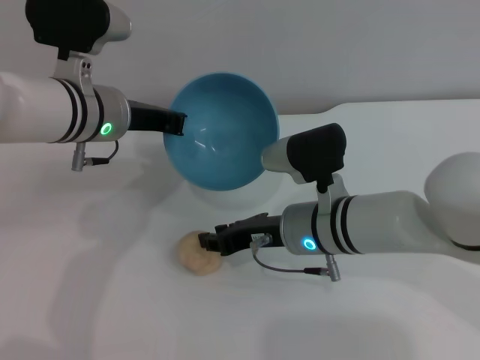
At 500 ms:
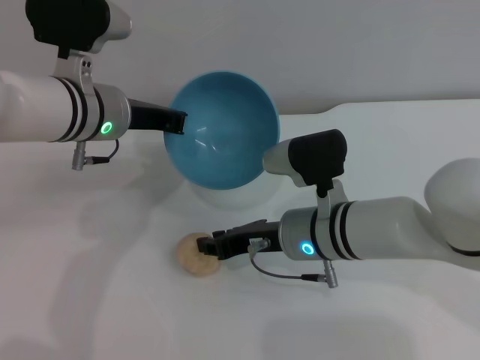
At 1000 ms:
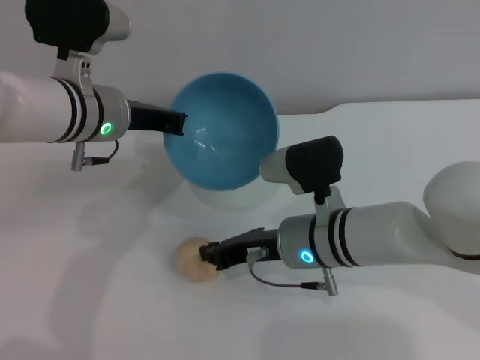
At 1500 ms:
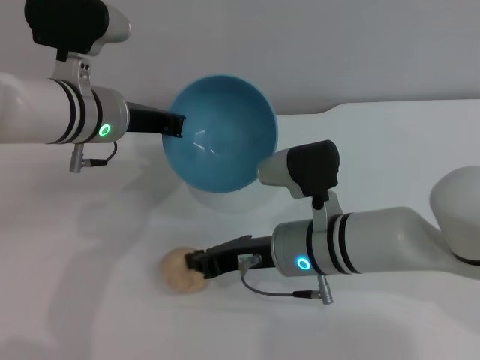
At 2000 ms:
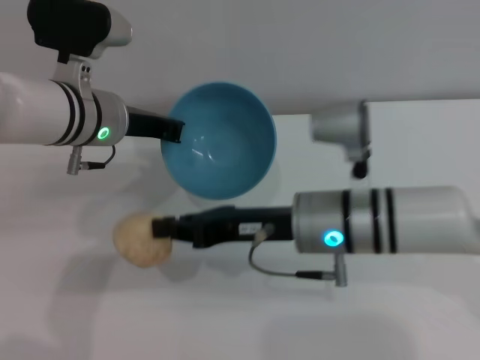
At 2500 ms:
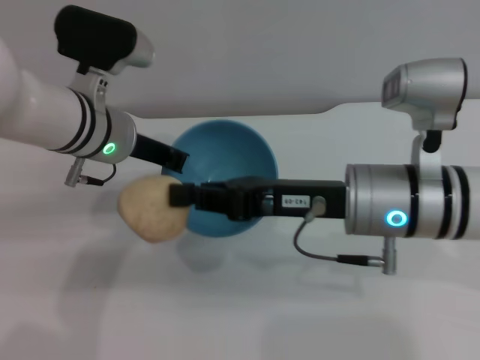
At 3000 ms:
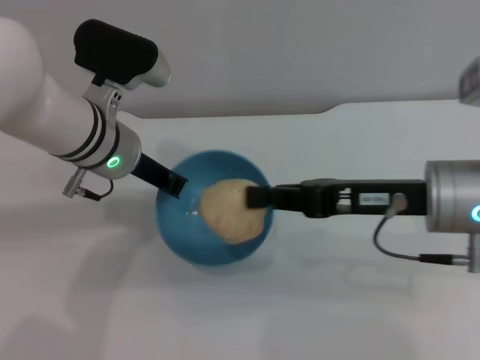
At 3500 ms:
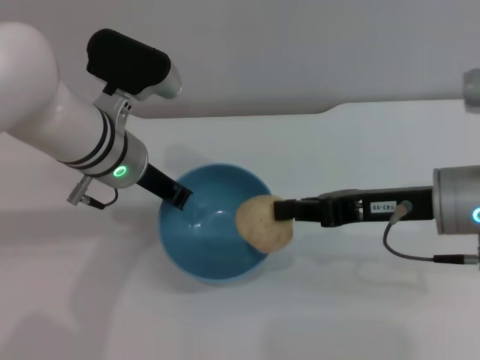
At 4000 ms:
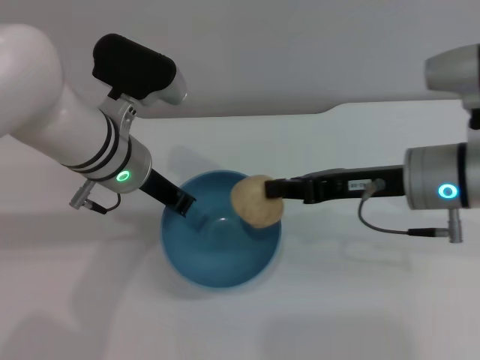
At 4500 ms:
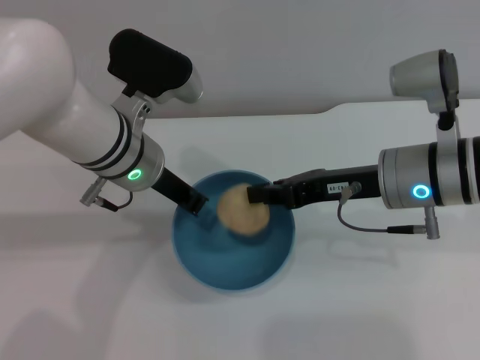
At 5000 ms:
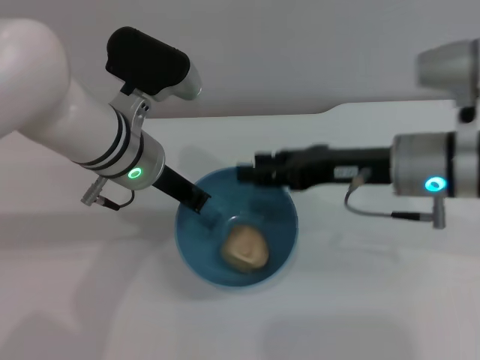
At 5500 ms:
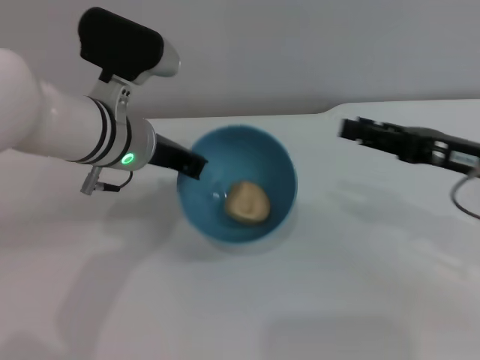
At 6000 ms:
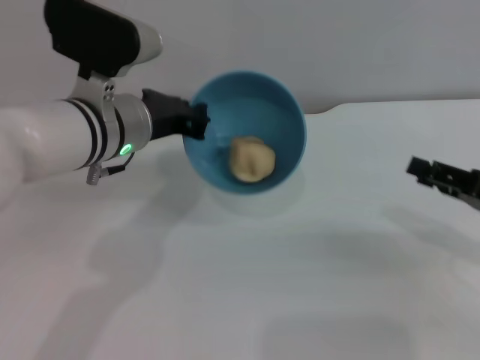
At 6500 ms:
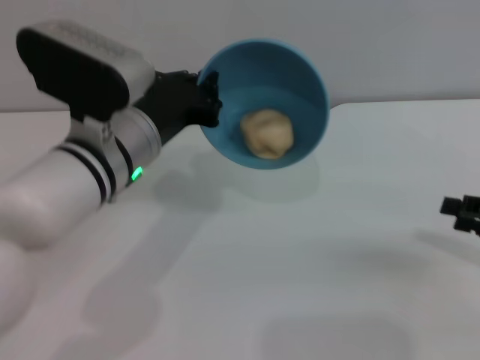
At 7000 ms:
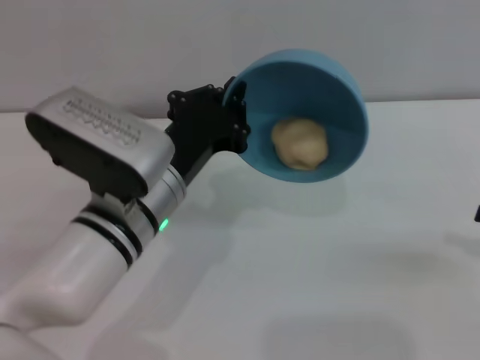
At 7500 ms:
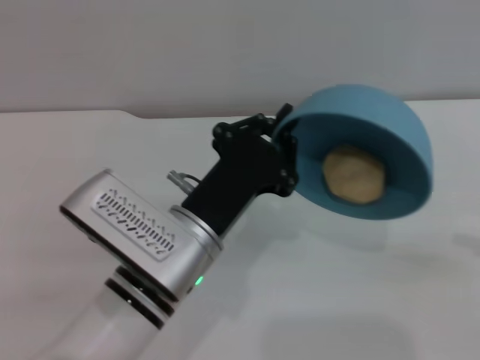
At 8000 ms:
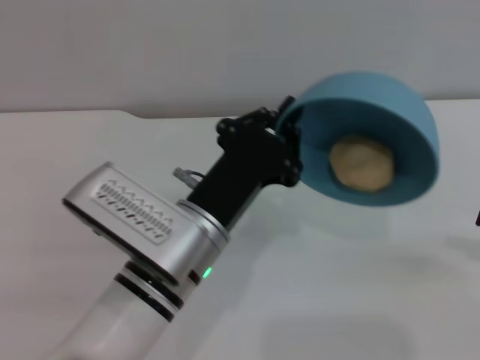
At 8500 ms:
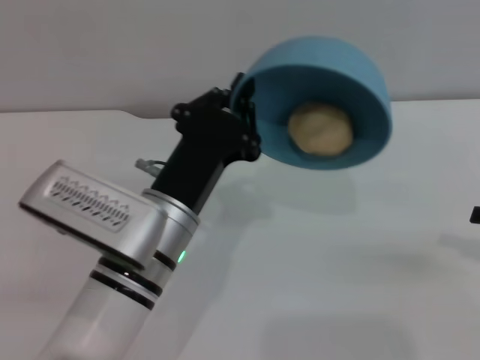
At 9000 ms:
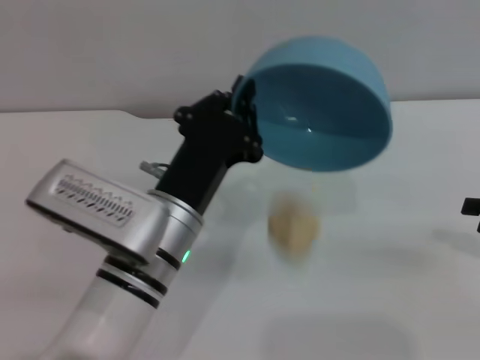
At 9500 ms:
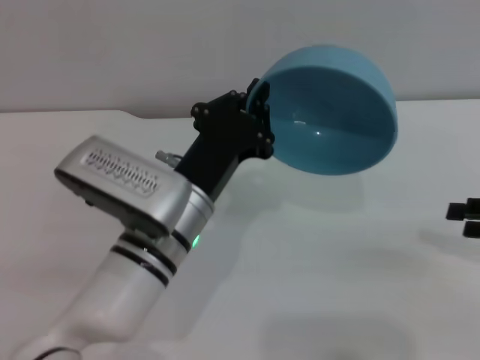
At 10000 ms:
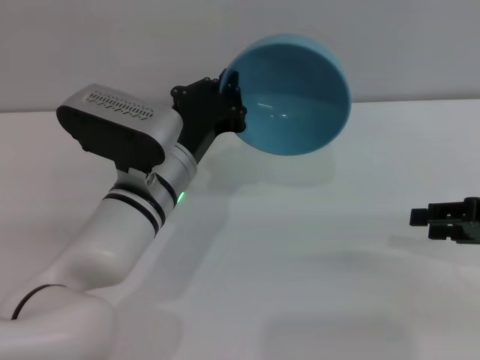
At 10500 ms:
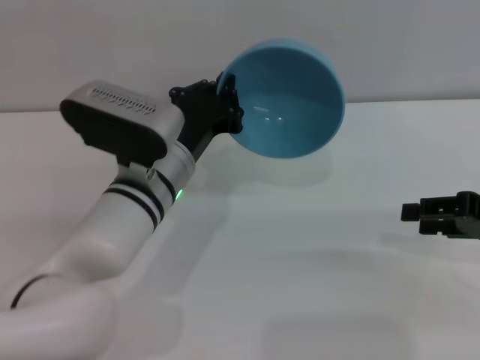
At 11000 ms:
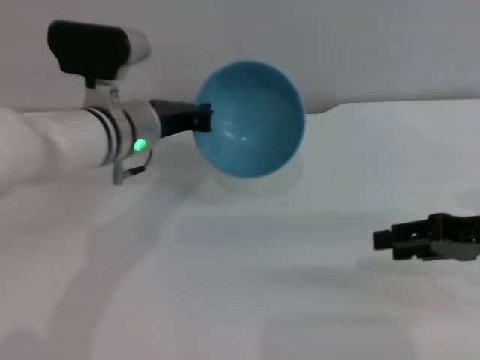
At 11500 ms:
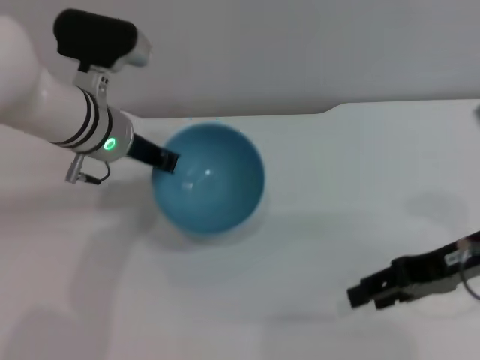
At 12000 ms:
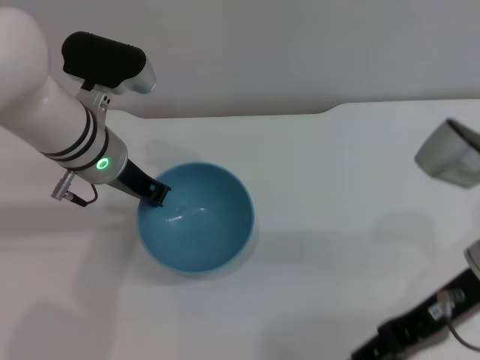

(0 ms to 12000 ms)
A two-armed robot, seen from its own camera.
Task of the whole recording: put the egg yolk pastry into the blue bowl and pour it out repeatedly.
Step, 0 ms - 2000 ms: Pick up the egg yolk pastry with the right gripper.
Step, 2500 ms - 5000 ms: Place the egg yolk pastry into the bowl.
Step, 5500 ms - 9500 ms: Pour the egg yolk pastry out of bowl.
0 ms - 2000 ms: The right gripper is displaced upward by roughly 5 cm, and closes its fingers.
2000 ms - 4000 ms: The right gripper is displaced to the right by some 10 cm.
4000 ms - 6000 ms: The right gripper moves to the right and backward, some 15 cm, and opens up.
6000 ms - 8000 ms: The left gripper heads backward, downward and to the right, covering roughly 15 cm, while the right gripper moves to the right, about 5 cm.
8000 ms - 10000 ms: The left gripper heads forward, covering about 10 cm. The right gripper moves to the left, roughly 5 cm.
10000 ms - 12000 ms: The right gripper shifts roughly 10 cm to the left, while the left gripper travels forward and to the left by about 10 cm.

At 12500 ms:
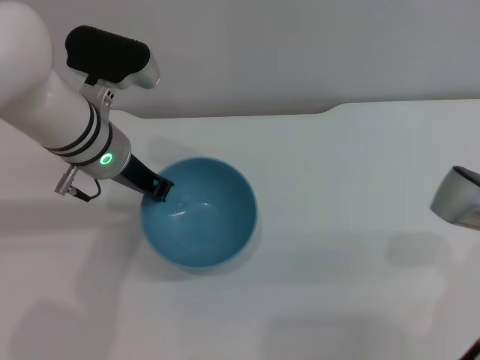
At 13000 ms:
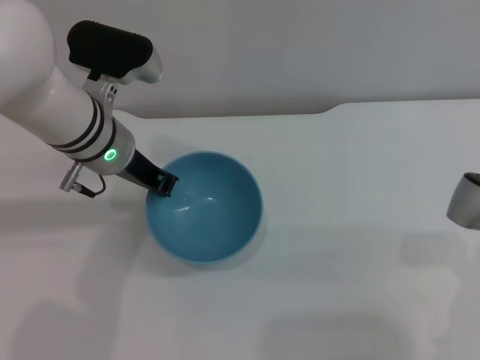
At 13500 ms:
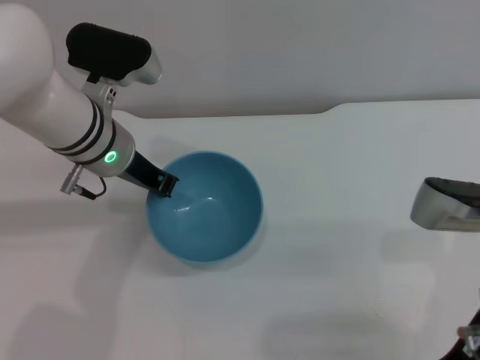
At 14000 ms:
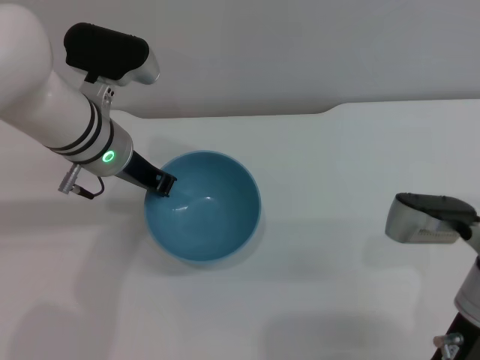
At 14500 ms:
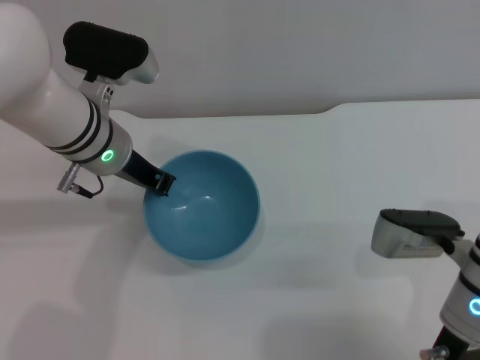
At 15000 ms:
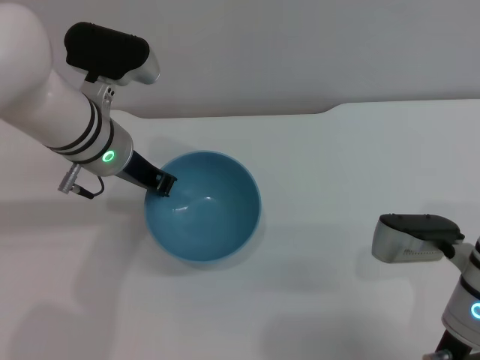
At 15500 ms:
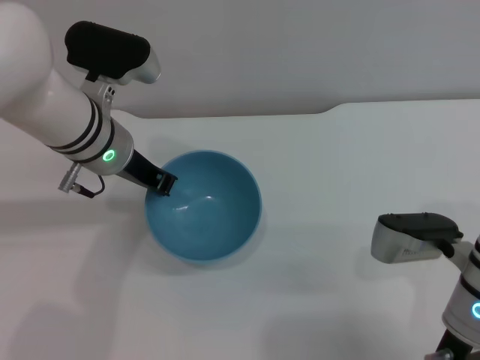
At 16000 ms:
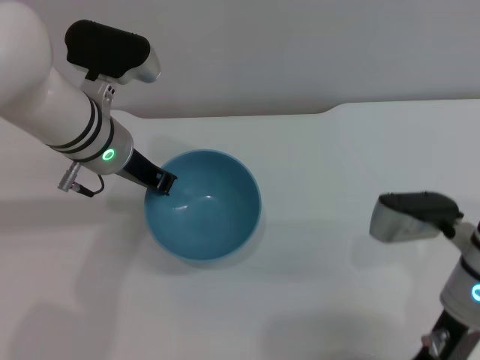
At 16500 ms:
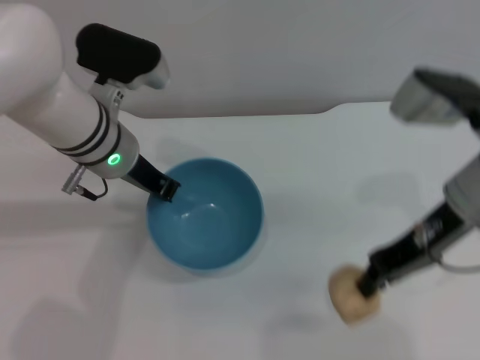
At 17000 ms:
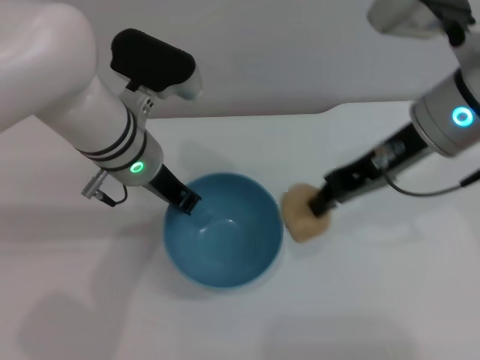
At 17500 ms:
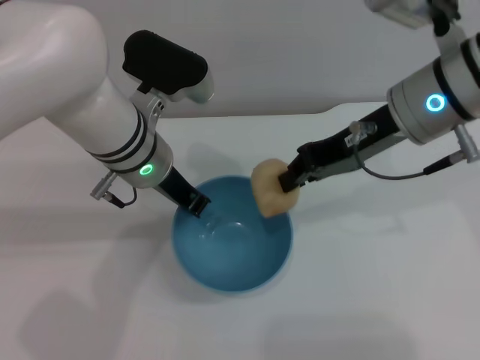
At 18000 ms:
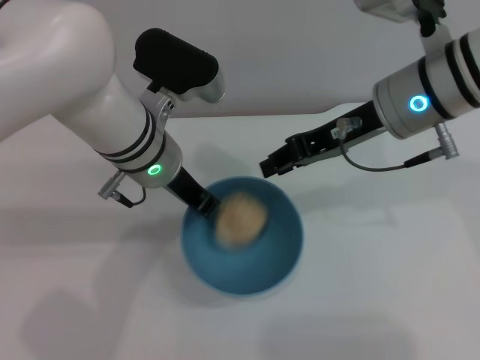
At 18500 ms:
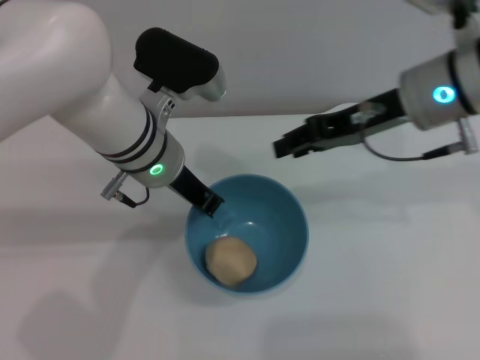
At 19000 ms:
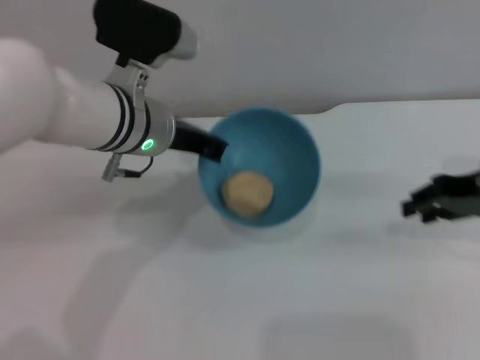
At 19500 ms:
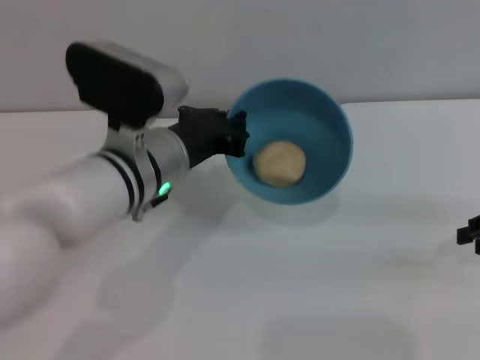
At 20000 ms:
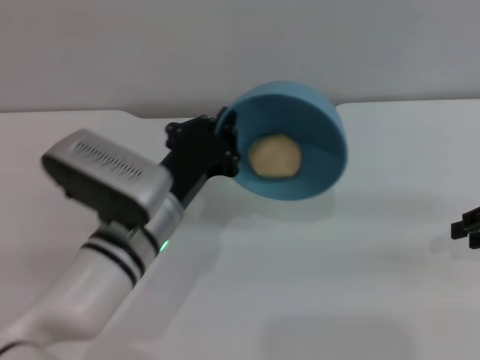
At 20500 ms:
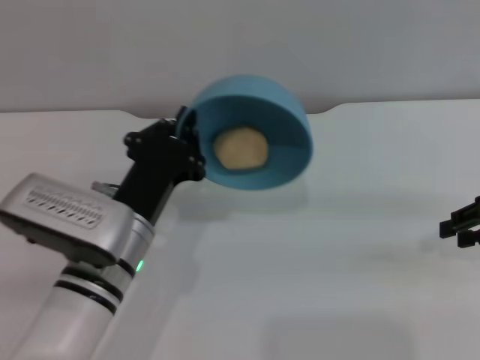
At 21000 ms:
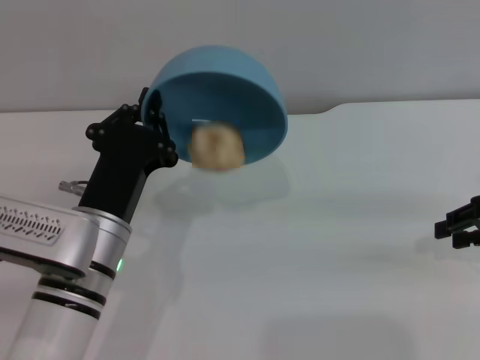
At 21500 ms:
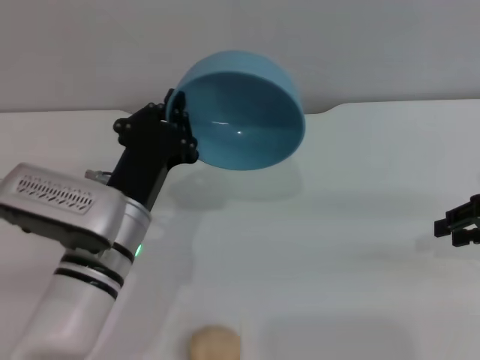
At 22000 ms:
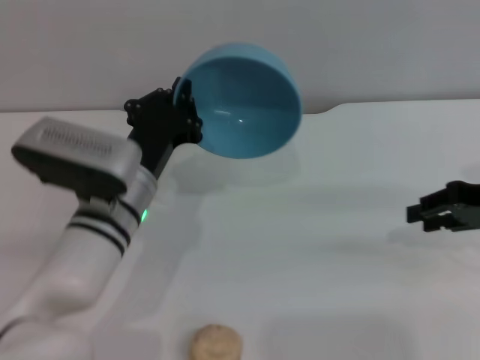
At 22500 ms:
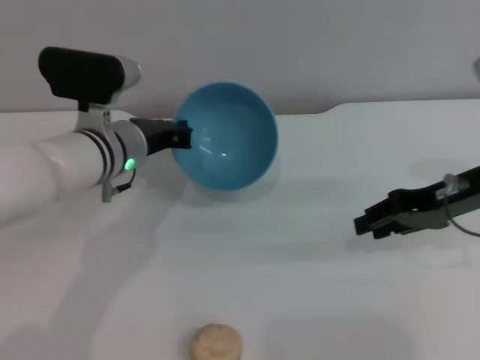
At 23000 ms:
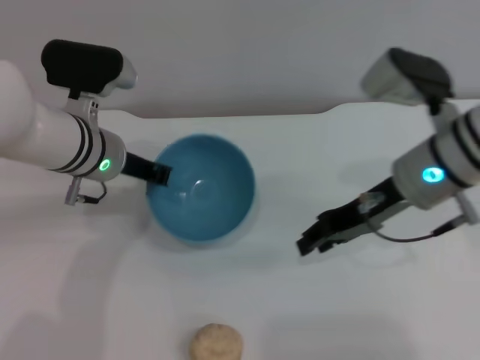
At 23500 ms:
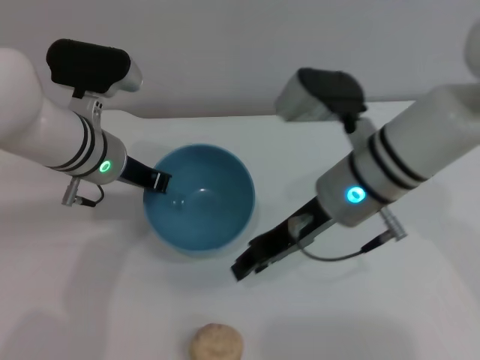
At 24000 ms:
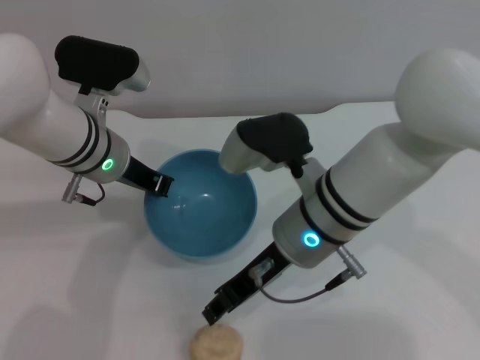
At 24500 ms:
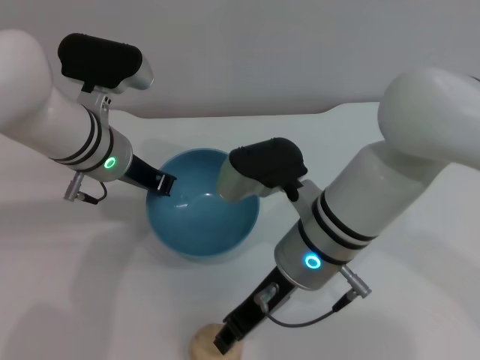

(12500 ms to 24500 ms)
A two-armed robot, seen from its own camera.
Task of the whole recording: put the egg yolk pastry into the blue bowl and pour it out repeatedly.
Step, 12500 ms - 16500 ms: Pick up the egg yolk pastry with the right gripper.
Step, 17000 ms - 18000 ms: Place the egg yolk pastry into the bowl.
Step, 18500 ms - 21500 ms: Pour the egg yolk pastry out of bowl.
12500 ms - 14500 ms: The right gripper heads downward, covering roughly 5 cm.
14500 ms - 16500 ms: The right gripper goes approximately 10 cm upward, and closes up.
16500 ms - 18500 ms: The right gripper heads forward, covering roughly 5 cm, and opens.
18500 ms - 20500 ms: The left gripper is displaced backward and downward by about 15 cm; the right gripper heads to the right and backward, covering roughly 15 cm.
20500 ms - 22500 ms: The left gripper heads forward, covering about 15 cm. The right gripper goes some 10 cm to the left.
22500 ms - 24500 ms: The right gripper shifts some 20 cm to the left.

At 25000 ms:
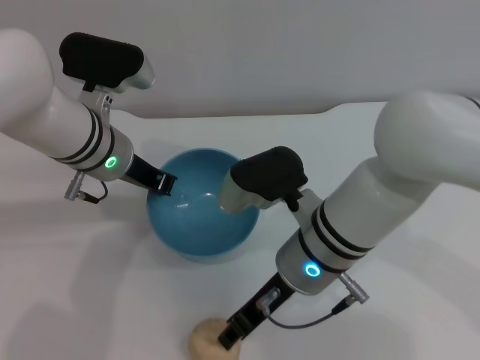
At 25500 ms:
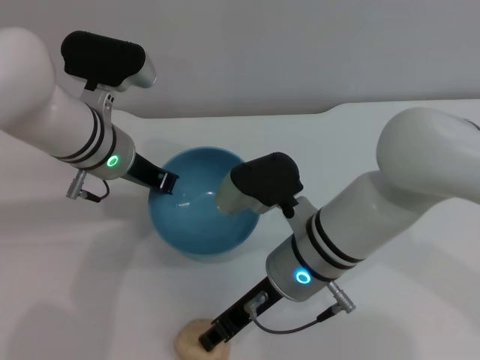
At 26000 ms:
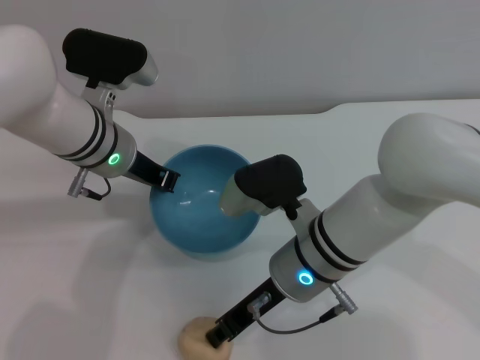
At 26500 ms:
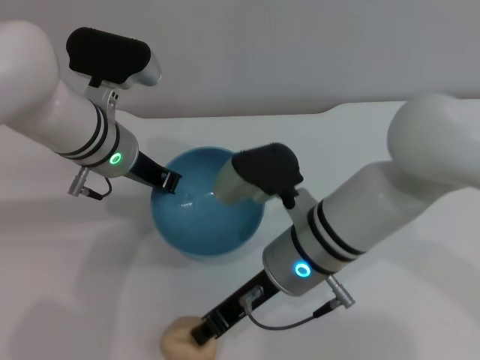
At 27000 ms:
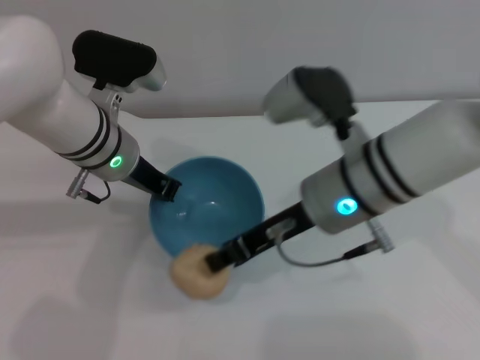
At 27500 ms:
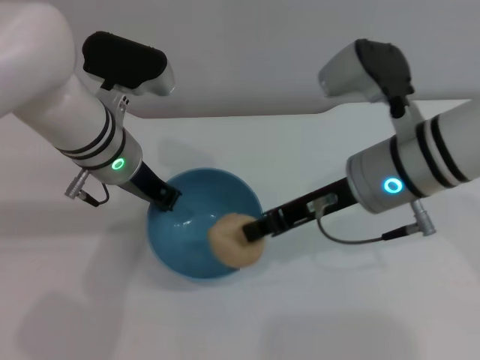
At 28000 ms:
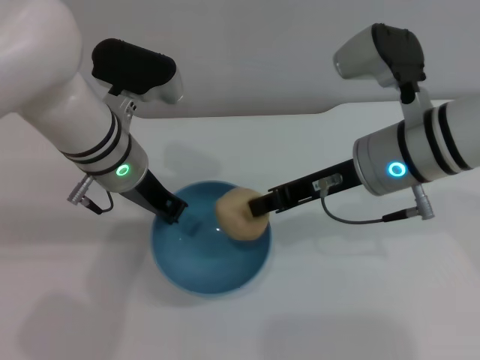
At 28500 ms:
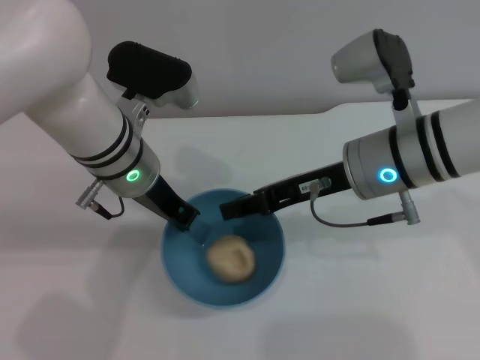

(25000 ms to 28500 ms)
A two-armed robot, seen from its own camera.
Task of the whole recording: put the egg yolk pastry into the blue bowl and pour it out repeatedly.
Step, 25000 ms - 27000 ms: Pick up the egg yolk pastry with the right gripper.
25000 ms - 27000 ms: The right gripper is displaced upward by approximately 5 cm, and closes up.
27000 ms - 28500 ms: The right gripper changes place by some 5 cm.
